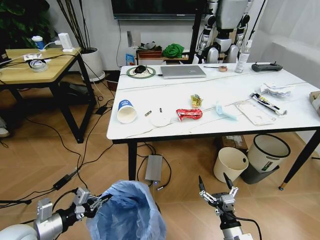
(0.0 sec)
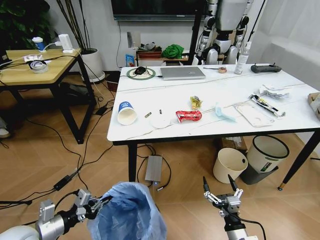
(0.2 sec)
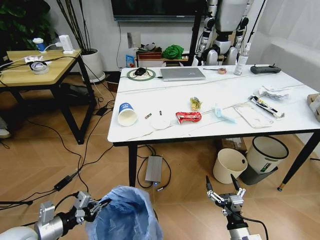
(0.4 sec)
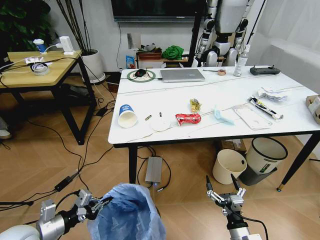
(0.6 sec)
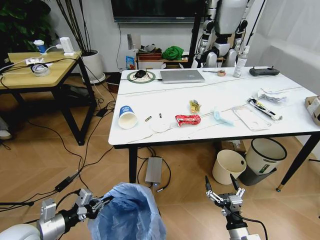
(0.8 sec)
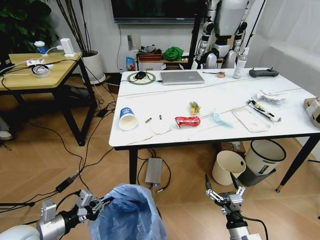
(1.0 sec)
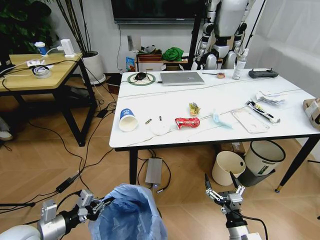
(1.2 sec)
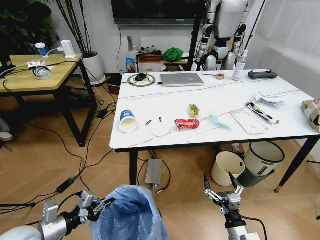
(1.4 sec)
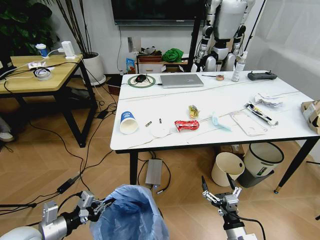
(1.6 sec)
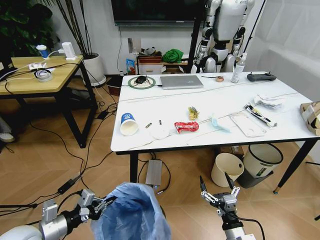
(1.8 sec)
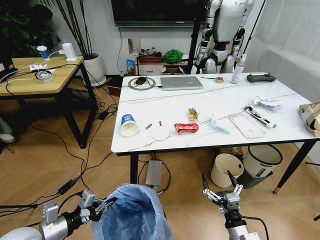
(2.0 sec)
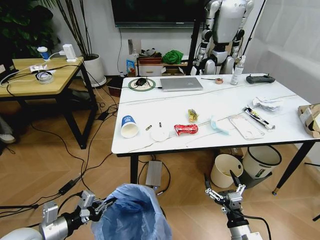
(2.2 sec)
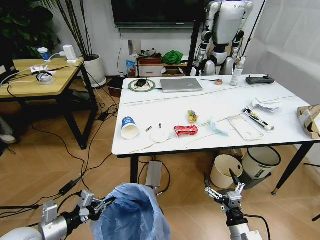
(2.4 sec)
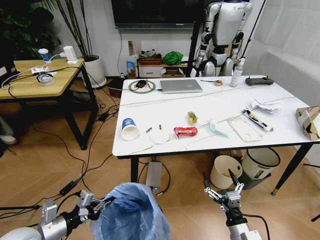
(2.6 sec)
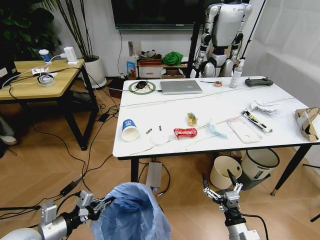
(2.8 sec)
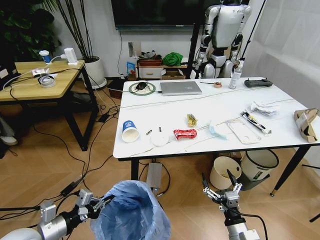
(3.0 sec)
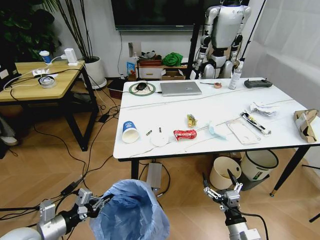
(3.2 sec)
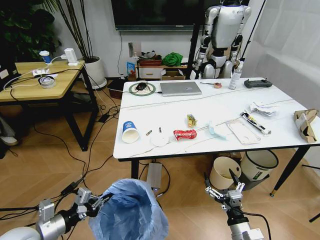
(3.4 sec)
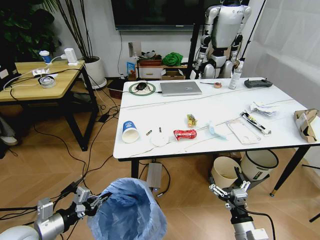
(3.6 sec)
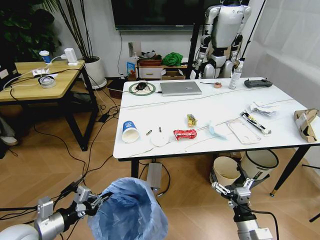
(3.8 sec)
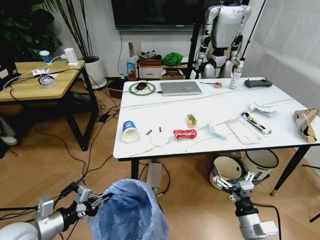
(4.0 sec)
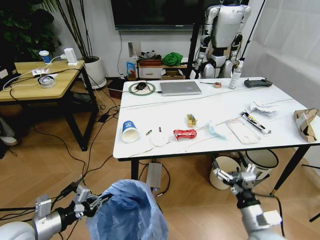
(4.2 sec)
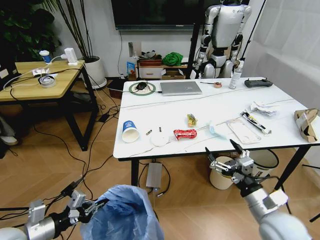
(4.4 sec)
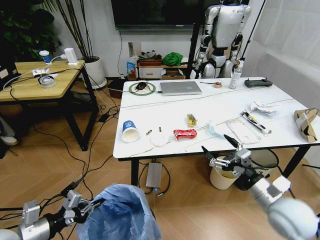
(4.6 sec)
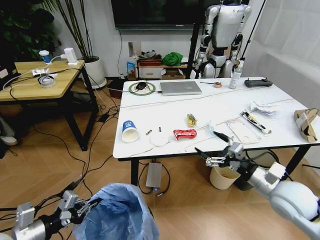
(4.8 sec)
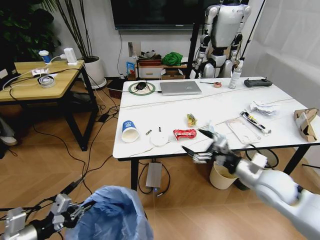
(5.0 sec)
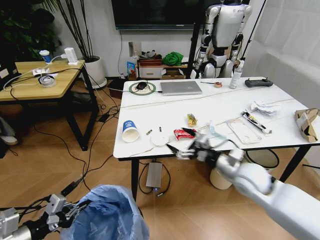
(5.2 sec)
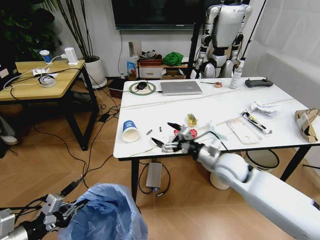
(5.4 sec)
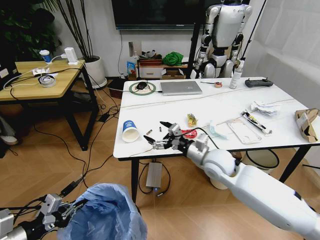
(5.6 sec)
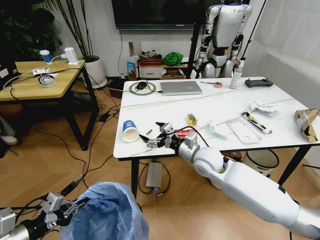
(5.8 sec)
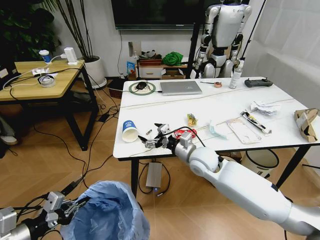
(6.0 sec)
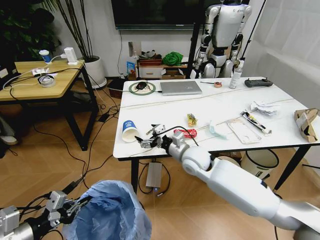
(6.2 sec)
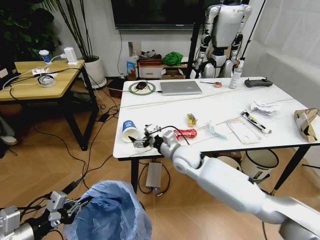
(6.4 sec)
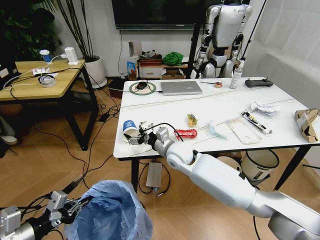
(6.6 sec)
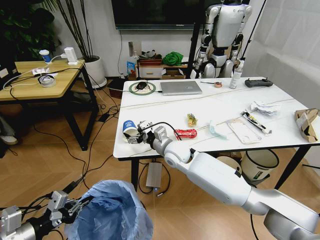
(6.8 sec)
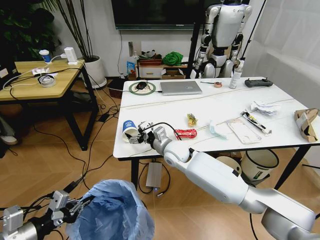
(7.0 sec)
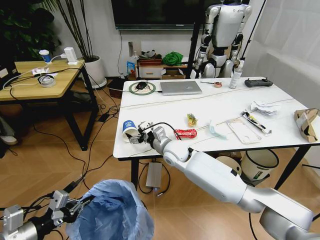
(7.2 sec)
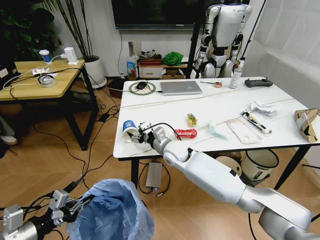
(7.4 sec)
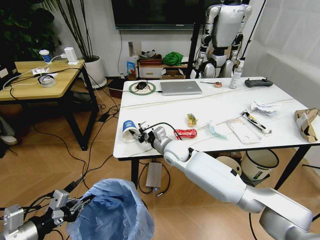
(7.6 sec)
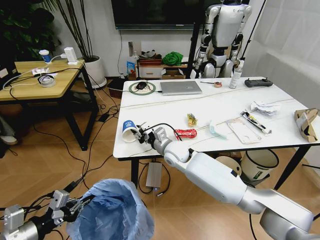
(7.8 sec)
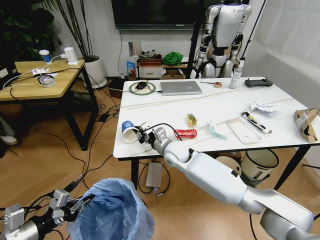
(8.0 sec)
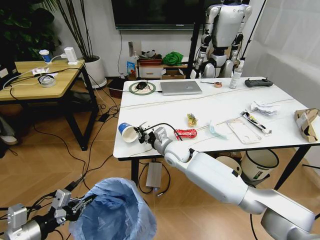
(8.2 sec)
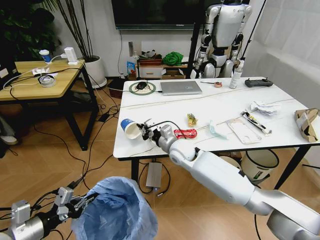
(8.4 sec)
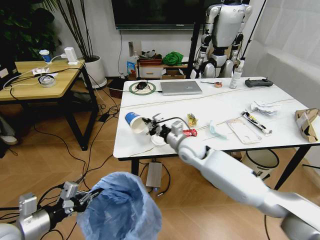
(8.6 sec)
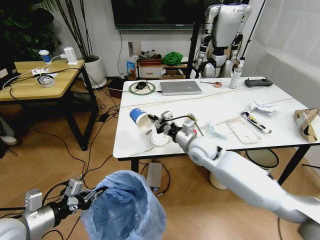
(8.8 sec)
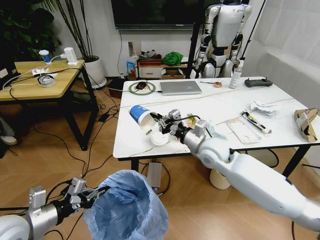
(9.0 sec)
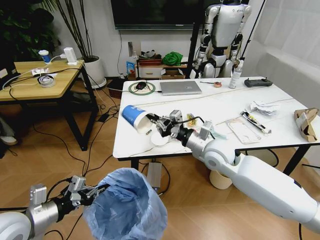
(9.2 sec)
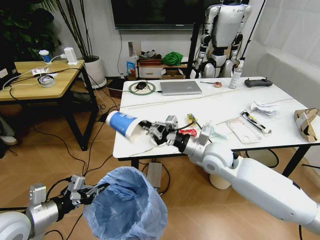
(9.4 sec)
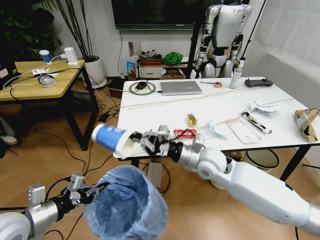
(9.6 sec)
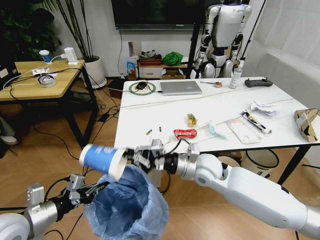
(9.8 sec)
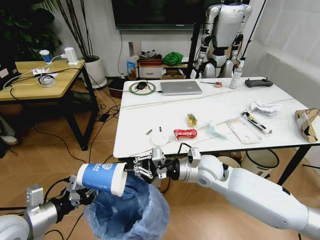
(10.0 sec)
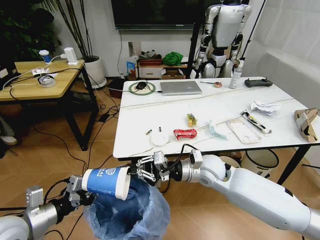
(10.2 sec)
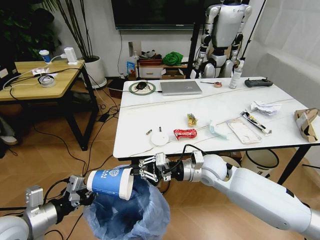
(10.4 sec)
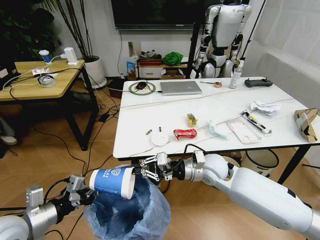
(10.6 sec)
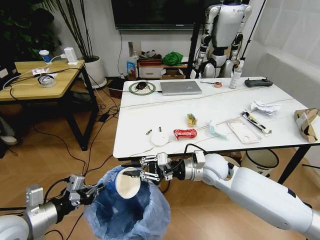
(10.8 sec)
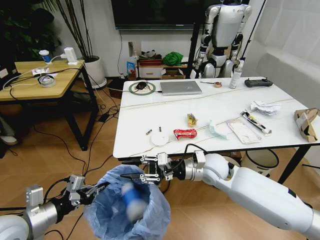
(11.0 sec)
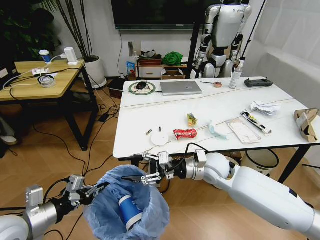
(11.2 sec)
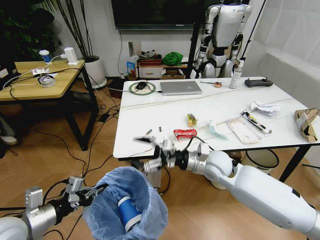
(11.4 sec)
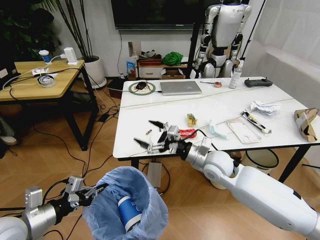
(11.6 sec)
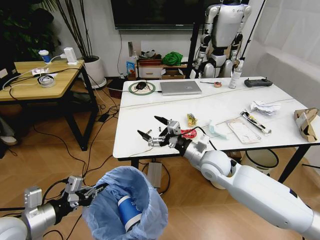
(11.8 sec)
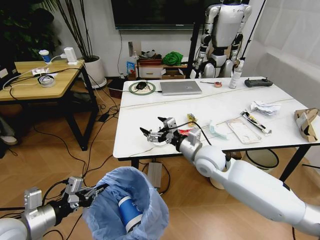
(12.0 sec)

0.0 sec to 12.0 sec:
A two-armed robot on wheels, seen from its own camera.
Task of the whole recording: Pick up the trash bin and place the trash from the table into it.
3.0 sec to 4.4 sec: The right gripper heads upward and forward, covering some 15 cm.
4.4 sec to 6.0 sec: The left gripper shifts by approximately 5 cm. Meanwhile the right gripper moves forward and to the left, approximately 25 cm.
6.0 sec to 7.6 sec: The right gripper goes some 10 cm to the left and forward, and closes its fingers.
7.6 sec to 9.0 sec: The left gripper shifts by some 5 cm; the right gripper is displaced to the right and upward by some 15 cm, and closes its fingers.
9.0 sec to 10.4 sec: The right gripper shifts by approximately 5 cm.
10.4 sec to 12.0 sec: The right gripper opens up.

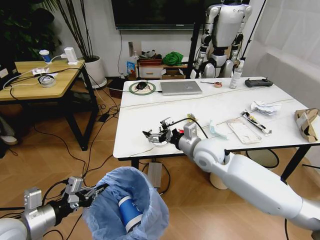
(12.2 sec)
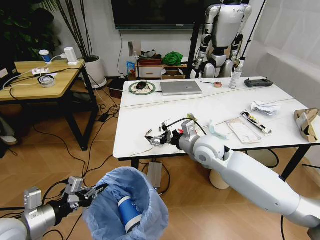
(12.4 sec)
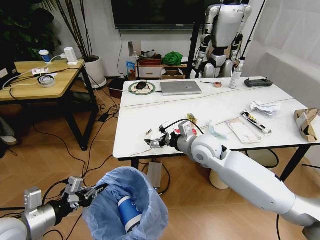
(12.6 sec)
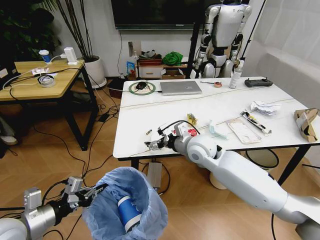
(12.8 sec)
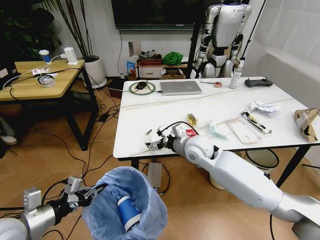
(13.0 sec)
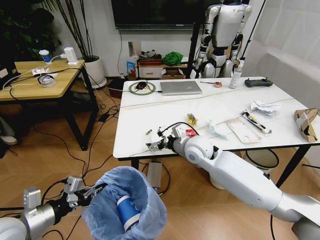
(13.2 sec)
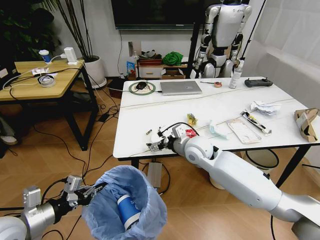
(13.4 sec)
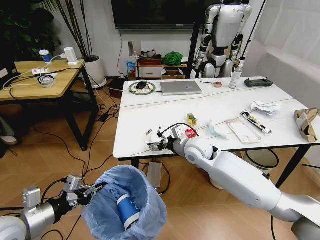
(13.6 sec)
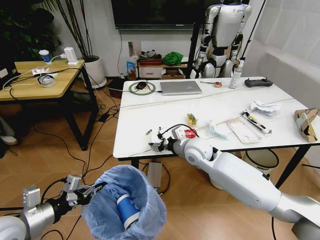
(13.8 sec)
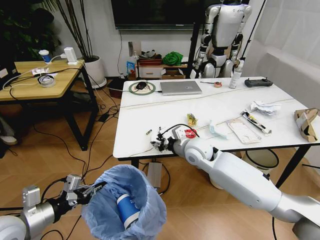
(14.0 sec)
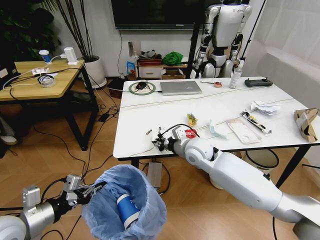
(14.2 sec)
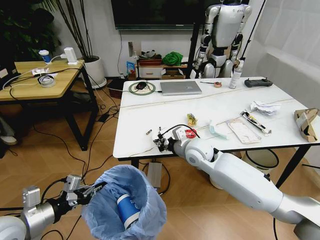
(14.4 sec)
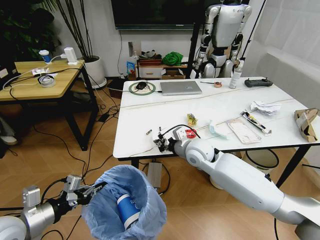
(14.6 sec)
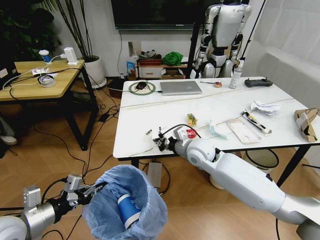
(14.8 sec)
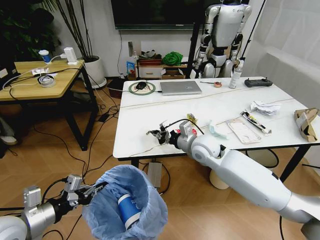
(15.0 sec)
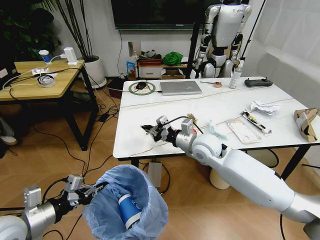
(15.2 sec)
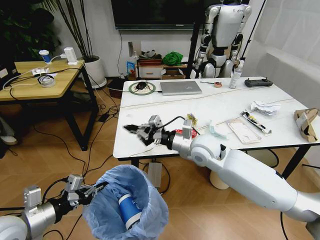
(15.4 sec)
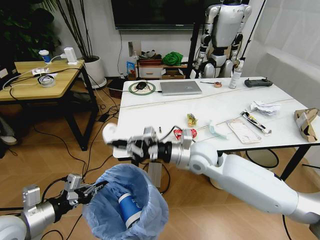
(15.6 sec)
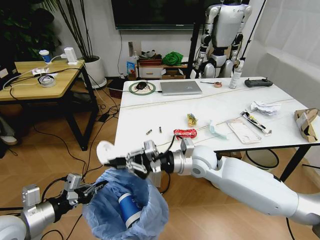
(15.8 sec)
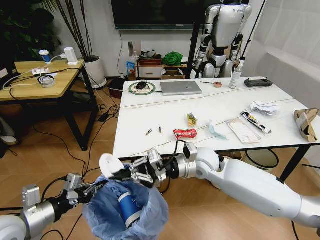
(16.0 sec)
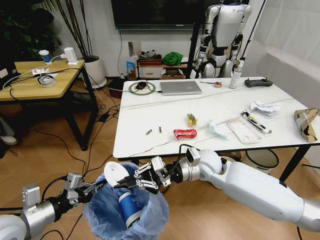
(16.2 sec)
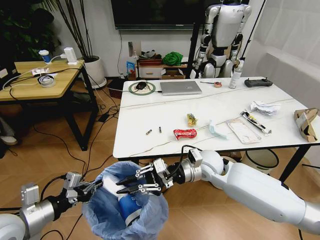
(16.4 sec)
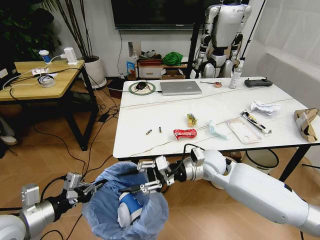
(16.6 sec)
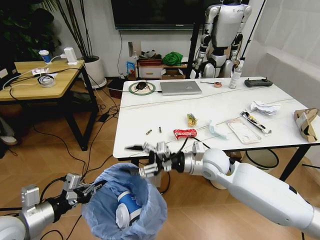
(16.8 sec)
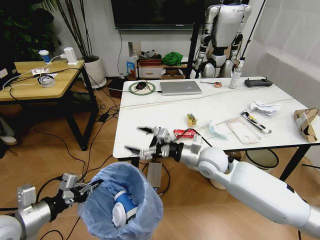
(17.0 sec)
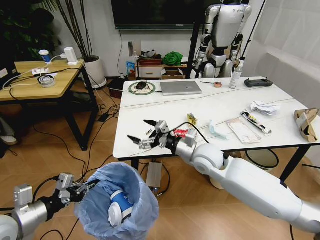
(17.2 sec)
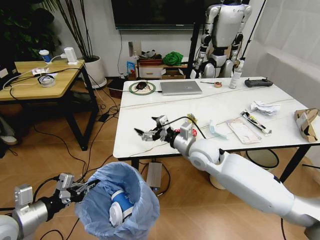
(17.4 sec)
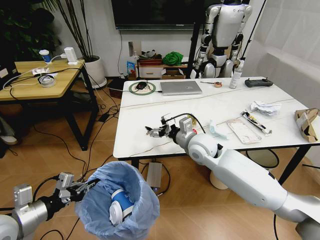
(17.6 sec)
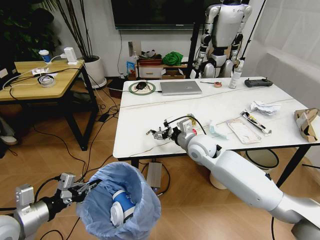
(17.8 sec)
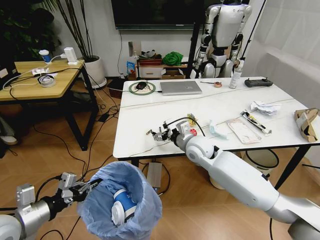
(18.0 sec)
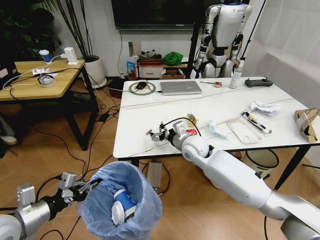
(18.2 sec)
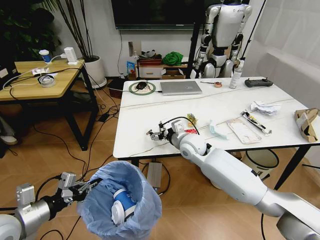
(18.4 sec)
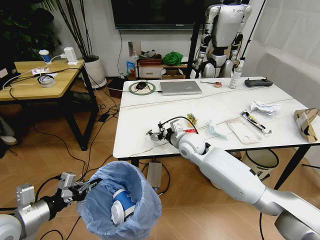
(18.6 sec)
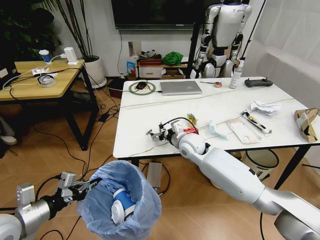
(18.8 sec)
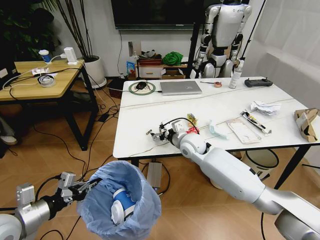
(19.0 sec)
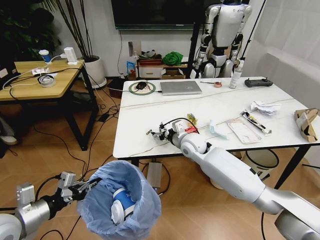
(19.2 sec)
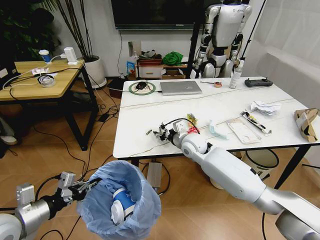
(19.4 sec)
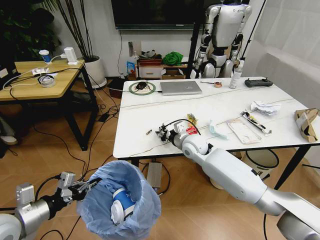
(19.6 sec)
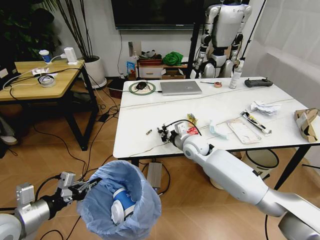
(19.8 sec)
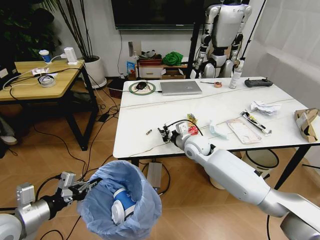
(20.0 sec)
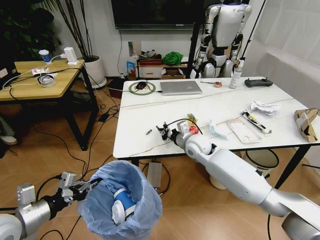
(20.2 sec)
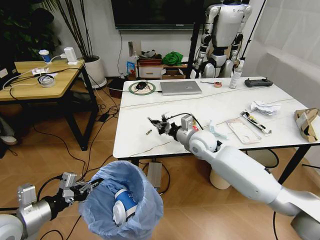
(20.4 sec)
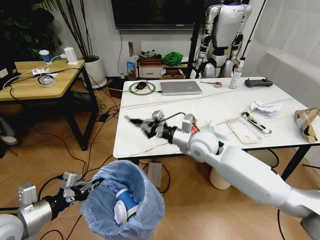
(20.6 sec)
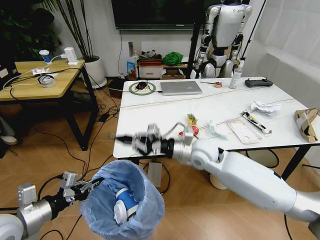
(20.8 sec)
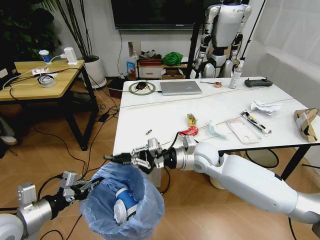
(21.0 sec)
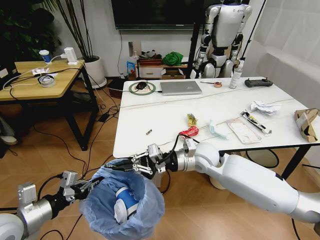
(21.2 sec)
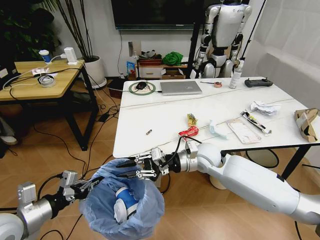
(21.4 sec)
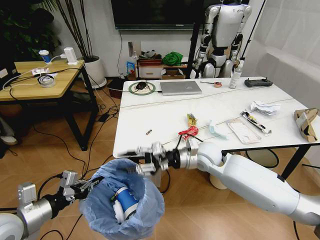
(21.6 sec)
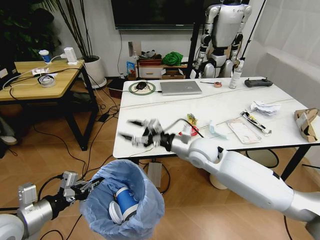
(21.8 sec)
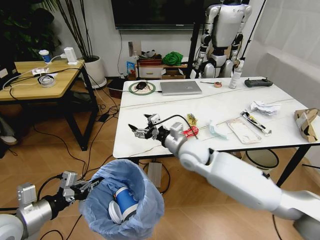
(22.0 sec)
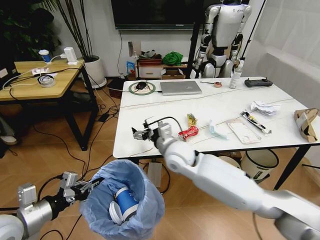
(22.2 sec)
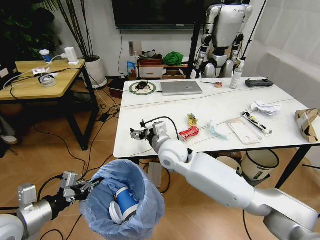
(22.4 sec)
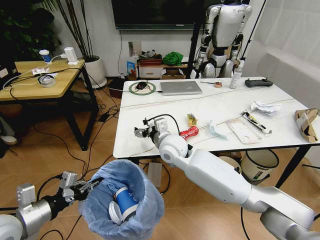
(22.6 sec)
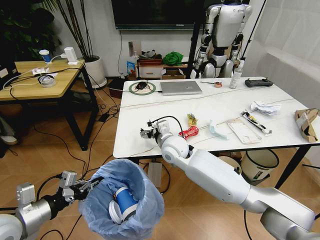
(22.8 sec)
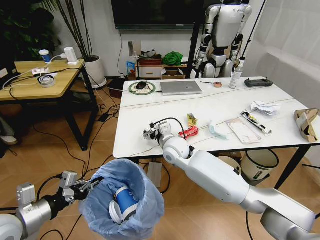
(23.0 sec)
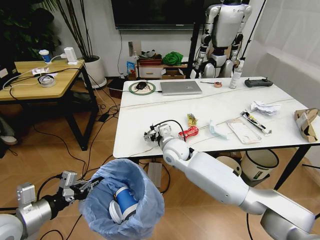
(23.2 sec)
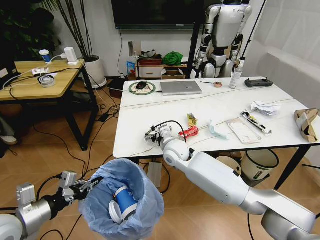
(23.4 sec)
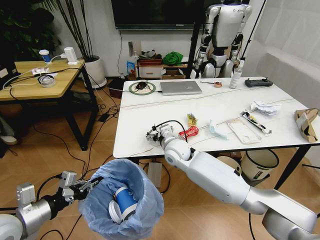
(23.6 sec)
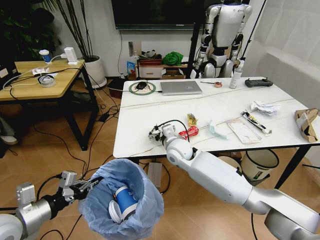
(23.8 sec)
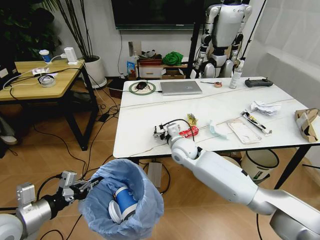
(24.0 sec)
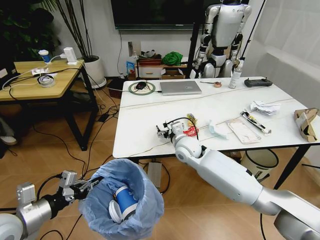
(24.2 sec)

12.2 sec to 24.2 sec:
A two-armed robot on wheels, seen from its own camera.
Task of the whole recording: Pick up the trash bin and place the trash from the table into it.
12.2 sec to 13.8 sec: The right gripper closes up.
13.8 sec to 15.2 sec: The right gripper closes up.
15.2 sec to 16.6 sec: The right gripper moves some 5 cm, and opens.
16.6 sec to 18.2 sec: The right gripper moves forward, approximately 5 cm, and opens its fingers.
18.2 sec to 19.8 sec: The right gripper closes its fingers.
19.8 sec to 21.2 sec: The right gripper is displaced backward by about 5 cm.
21.2 sec to 22.6 sec: The right gripper moves to the left, approximately 10 cm, and opens its fingers.
22.6 sec to 24.2 sec: The right gripper moves to the right, some 5 cm.
